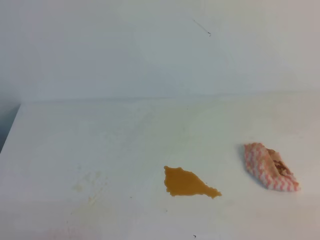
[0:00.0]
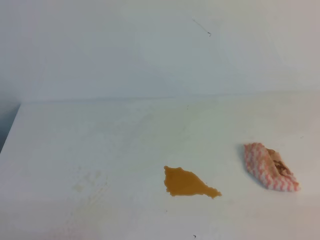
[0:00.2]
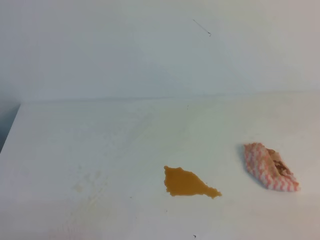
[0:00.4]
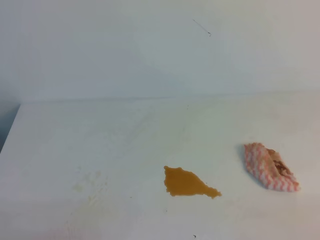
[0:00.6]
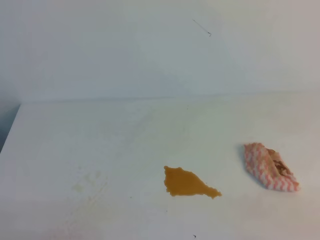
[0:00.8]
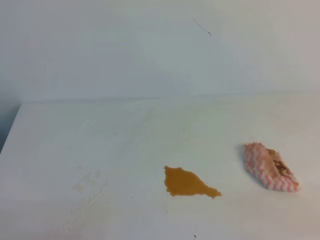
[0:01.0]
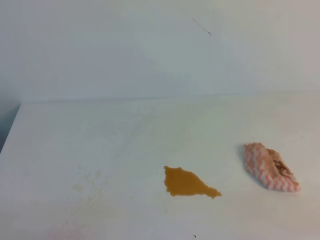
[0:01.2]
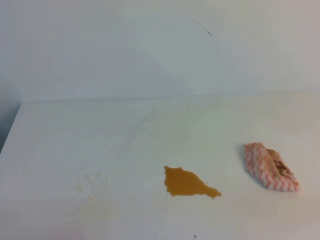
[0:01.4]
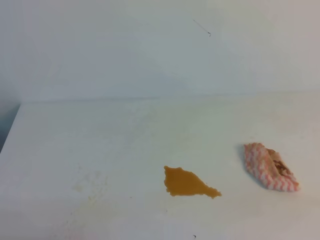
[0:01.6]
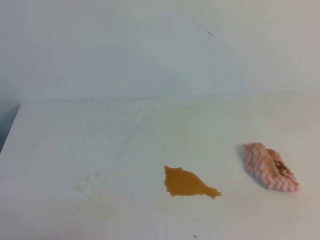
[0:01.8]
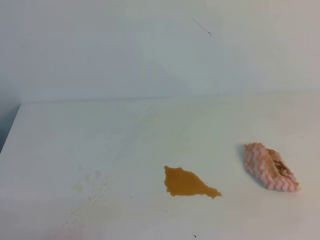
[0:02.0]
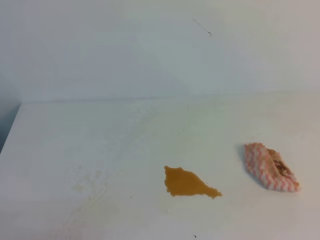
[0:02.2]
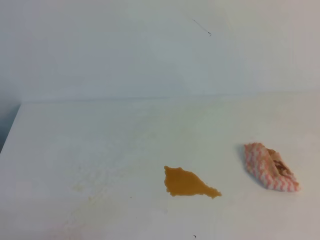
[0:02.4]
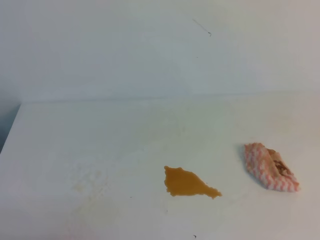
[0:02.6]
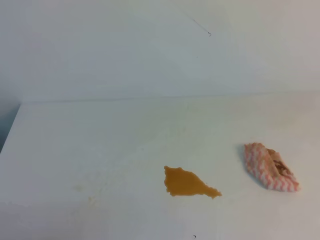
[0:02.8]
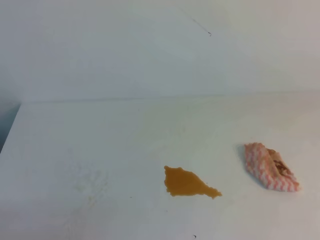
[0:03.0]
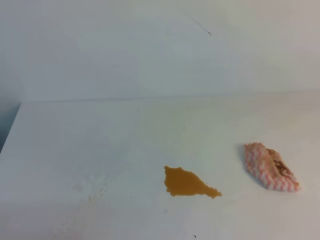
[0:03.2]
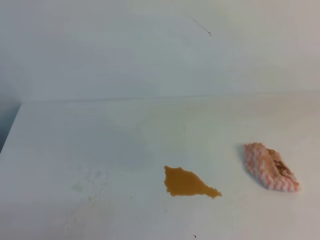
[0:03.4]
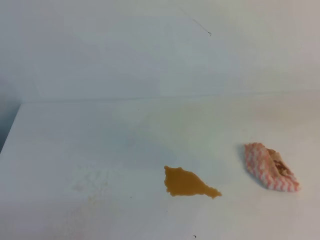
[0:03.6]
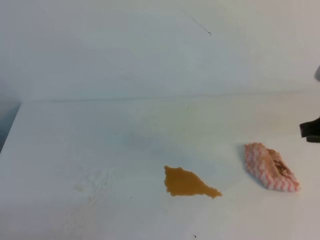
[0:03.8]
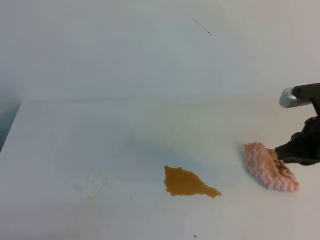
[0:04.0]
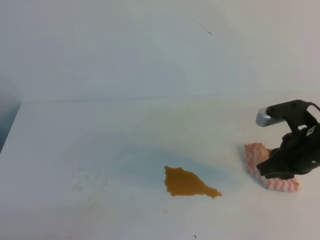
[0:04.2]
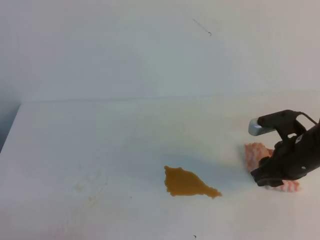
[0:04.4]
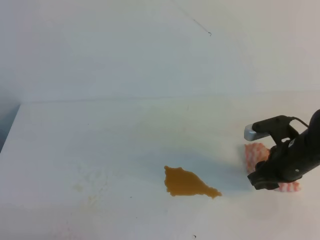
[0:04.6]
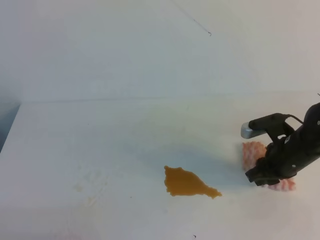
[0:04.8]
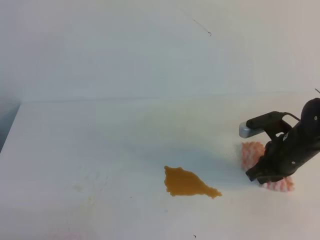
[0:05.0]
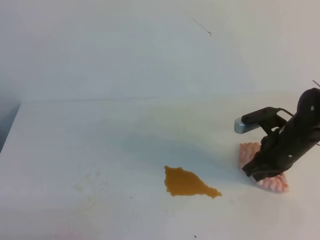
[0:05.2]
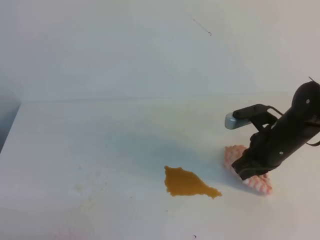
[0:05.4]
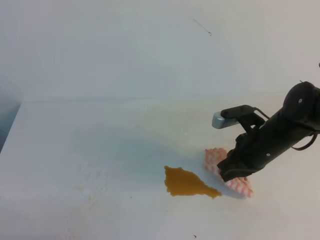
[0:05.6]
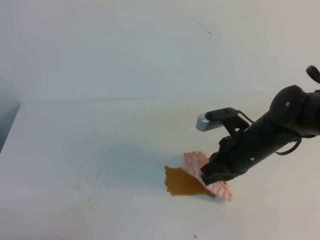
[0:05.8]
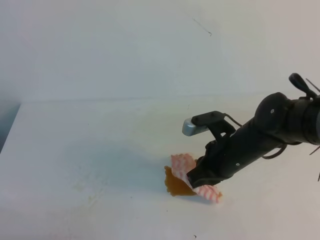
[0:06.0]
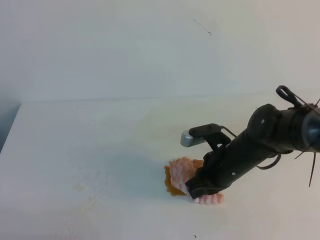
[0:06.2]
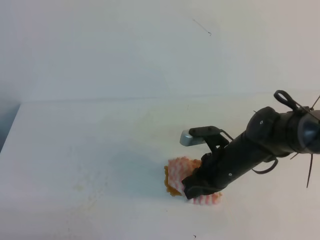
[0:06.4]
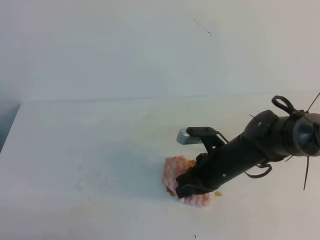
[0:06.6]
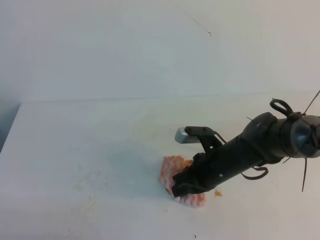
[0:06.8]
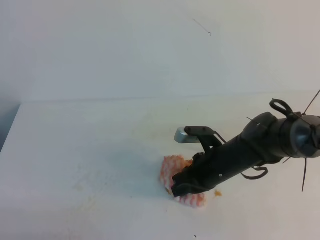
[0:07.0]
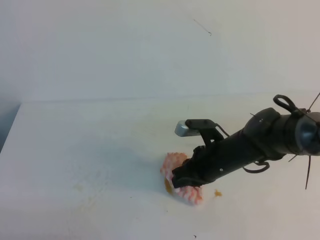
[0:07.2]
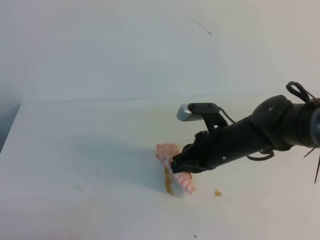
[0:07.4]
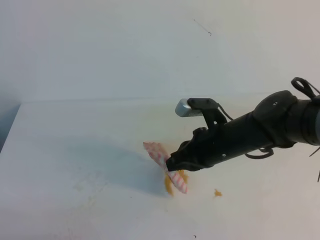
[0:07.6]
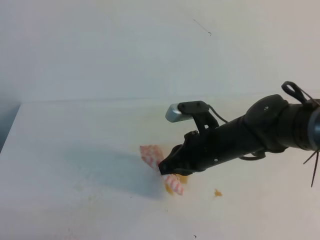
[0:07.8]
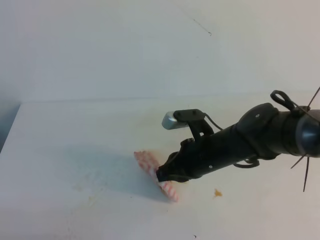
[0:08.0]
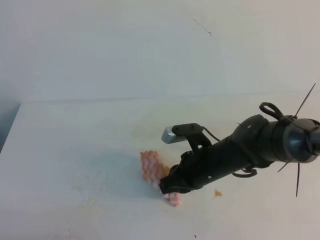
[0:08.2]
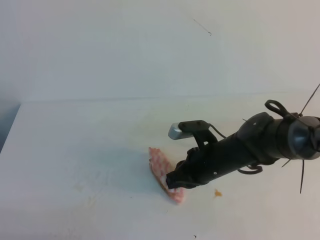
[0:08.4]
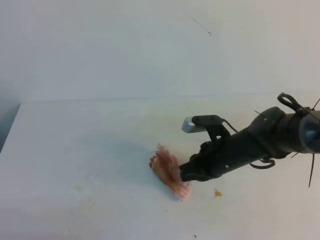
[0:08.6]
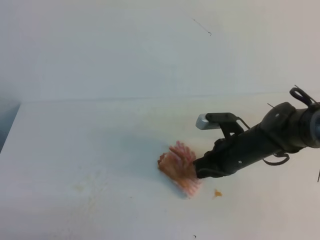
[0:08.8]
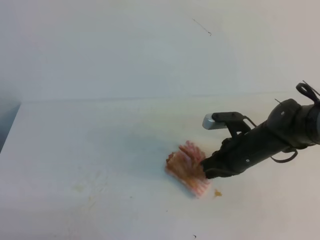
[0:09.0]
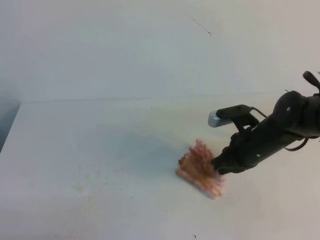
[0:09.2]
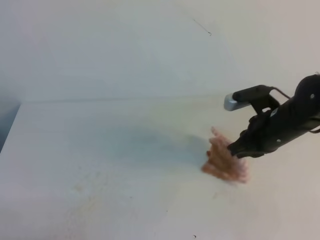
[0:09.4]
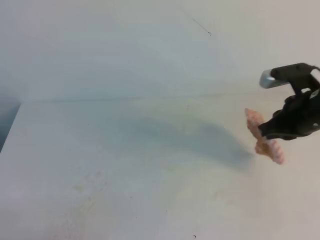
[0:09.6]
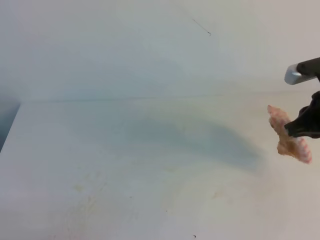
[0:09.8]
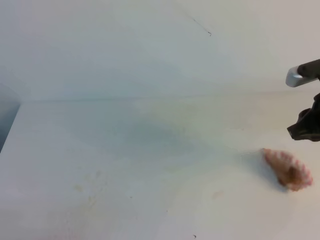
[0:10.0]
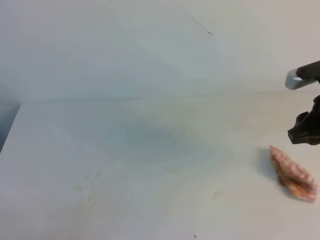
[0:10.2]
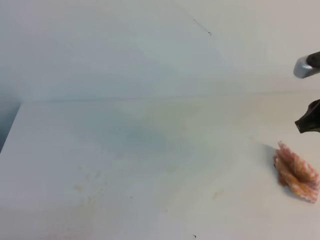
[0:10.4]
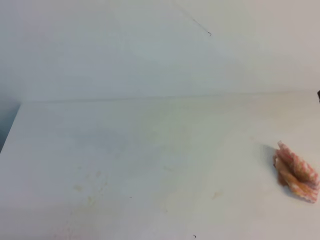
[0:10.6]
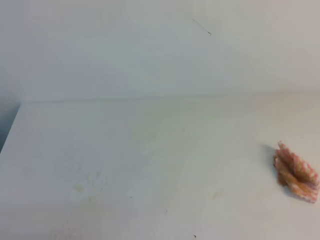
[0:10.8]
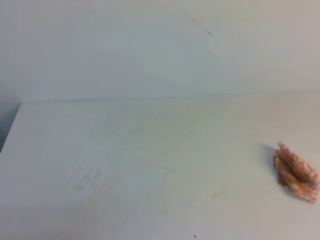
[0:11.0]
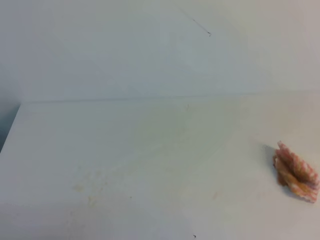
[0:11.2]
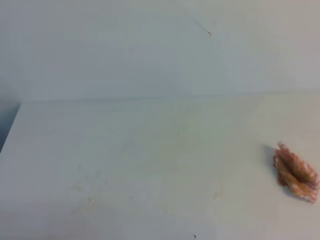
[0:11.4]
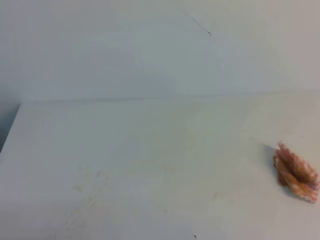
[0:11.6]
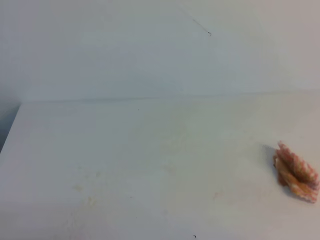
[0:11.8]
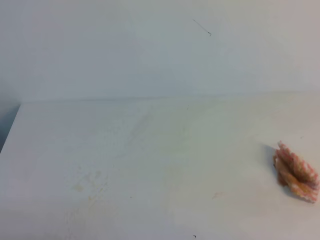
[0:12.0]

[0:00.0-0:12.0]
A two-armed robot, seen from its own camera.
0:03.0 to 0:04.4: The right gripper goes about 30 cm downward, forward and to the left, and opens.
0:04.4 to 0:06.0: The right gripper travels to the left by some 10 cm, and closes.
0:06.0 to 0:07.6: The grippers stay close to where they were, moving slightly.
0:07.6 to 0:09.0: The right gripper is displaced to the right by about 5 cm.
0:09.0 to 0:10.4: The right gripper shifts approximately 20 cm upward and to the right, and opens its fingers.
0:10.4 to 0:12.0: The right gripper is displaced backward by roughly 20 cm, and closes.

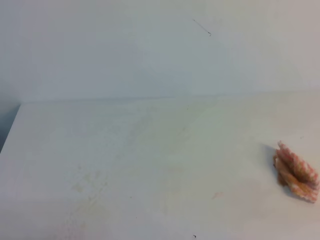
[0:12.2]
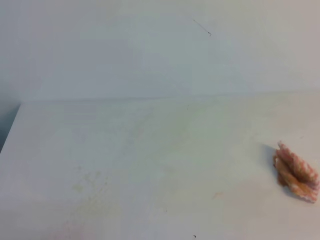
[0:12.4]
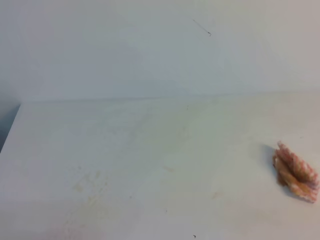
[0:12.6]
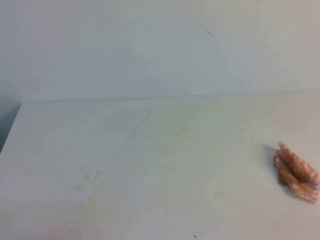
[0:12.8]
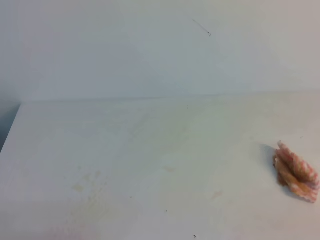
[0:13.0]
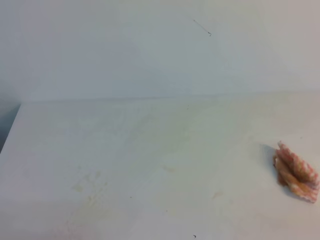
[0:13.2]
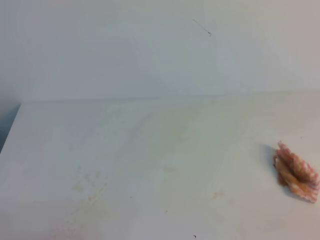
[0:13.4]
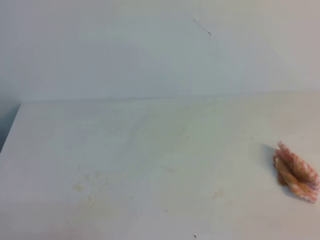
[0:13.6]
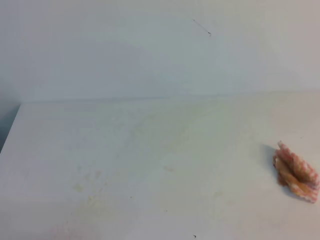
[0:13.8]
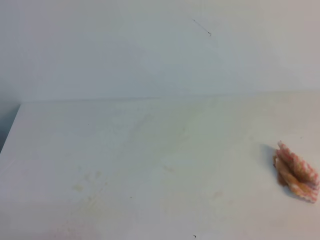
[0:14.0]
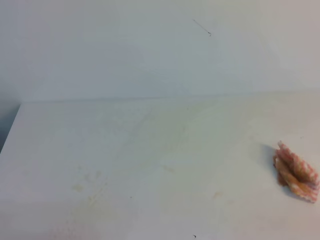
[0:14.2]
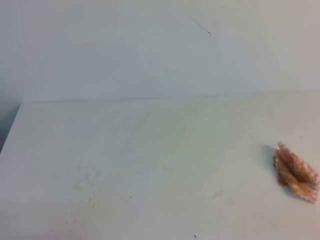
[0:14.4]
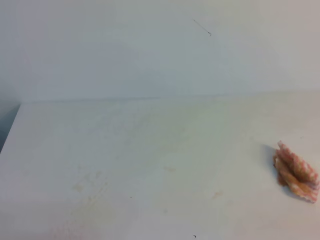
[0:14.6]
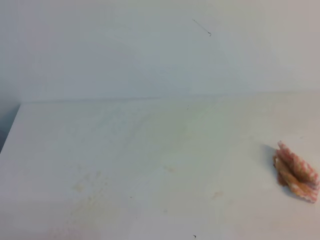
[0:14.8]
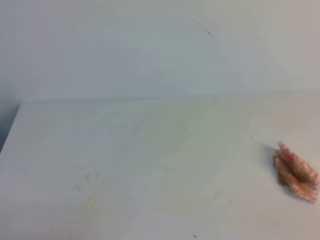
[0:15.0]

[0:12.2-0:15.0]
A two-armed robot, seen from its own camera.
0:13.6 to 0:15.0: Both grippers stay about where they are.
